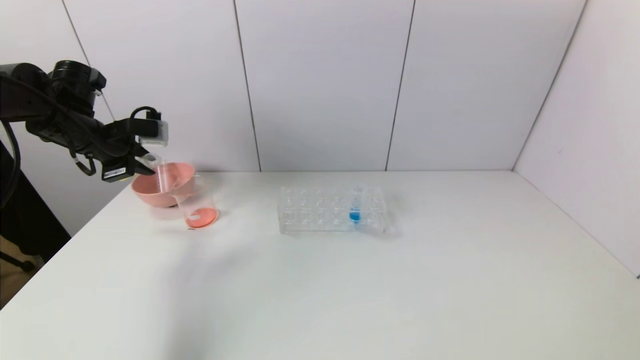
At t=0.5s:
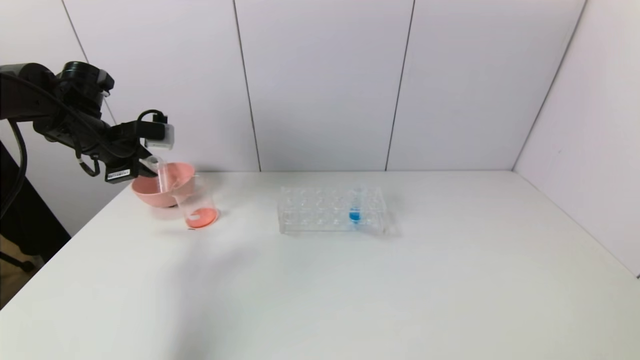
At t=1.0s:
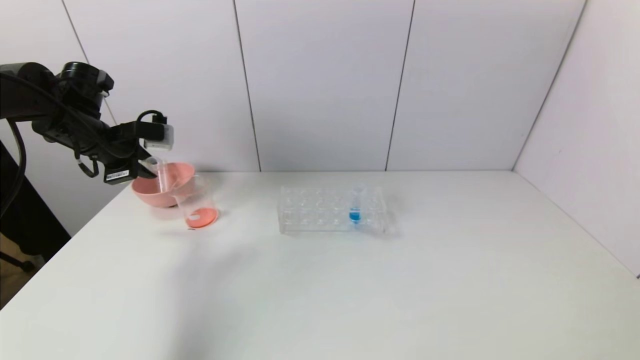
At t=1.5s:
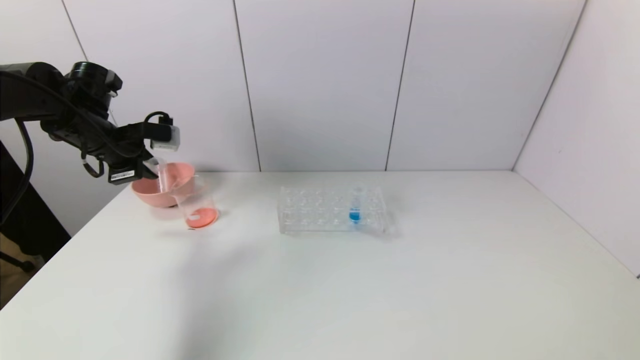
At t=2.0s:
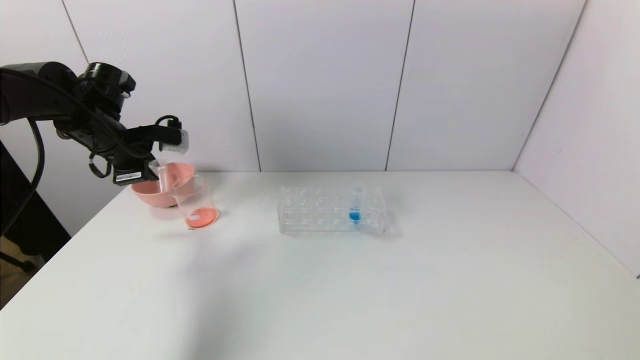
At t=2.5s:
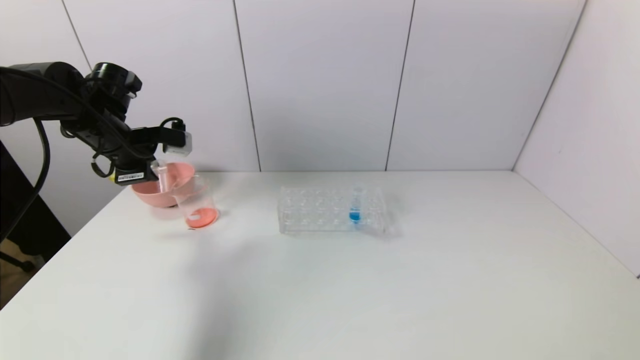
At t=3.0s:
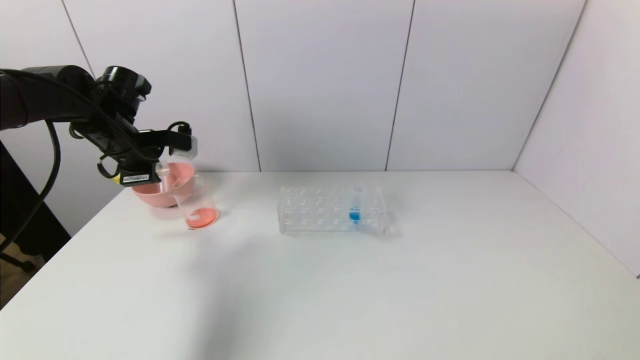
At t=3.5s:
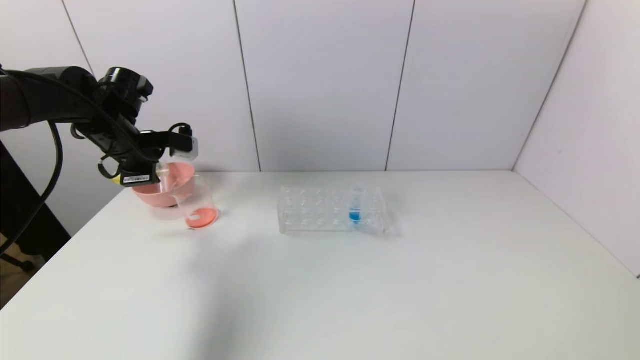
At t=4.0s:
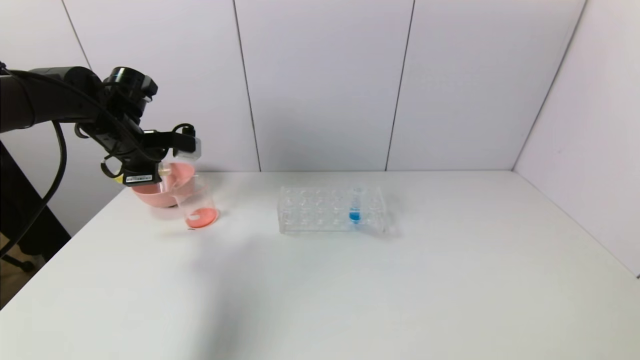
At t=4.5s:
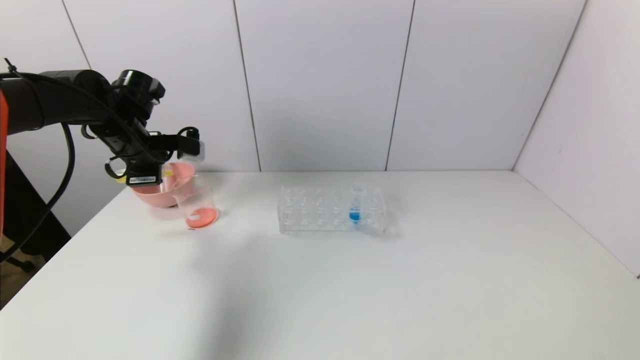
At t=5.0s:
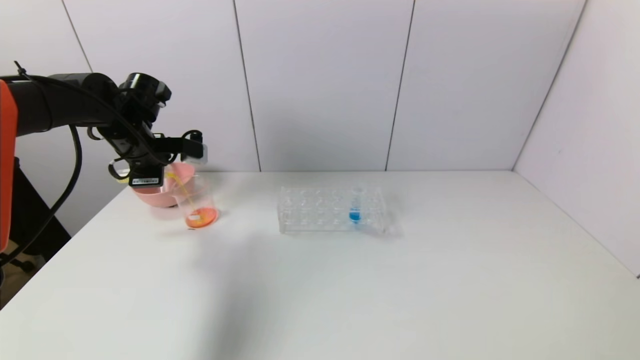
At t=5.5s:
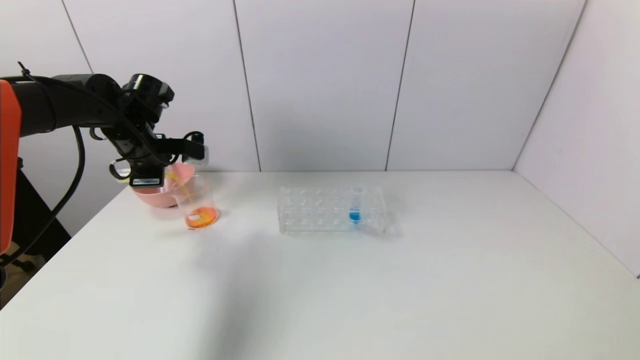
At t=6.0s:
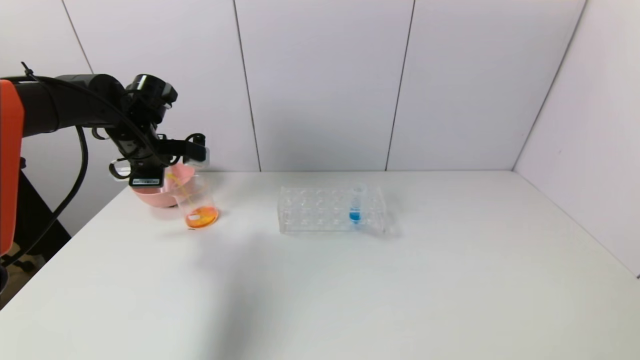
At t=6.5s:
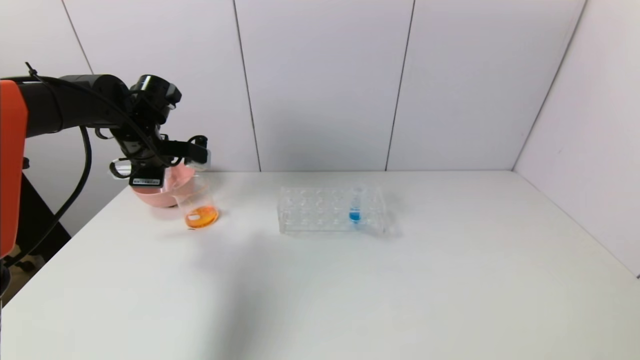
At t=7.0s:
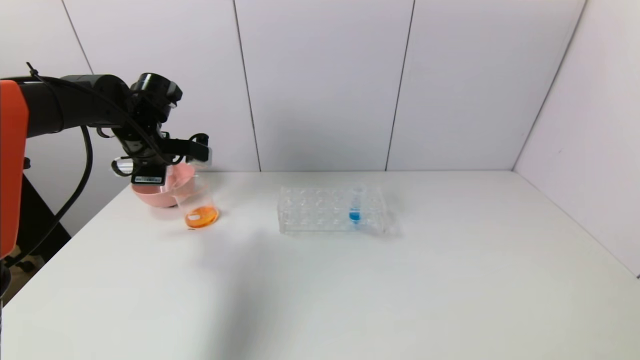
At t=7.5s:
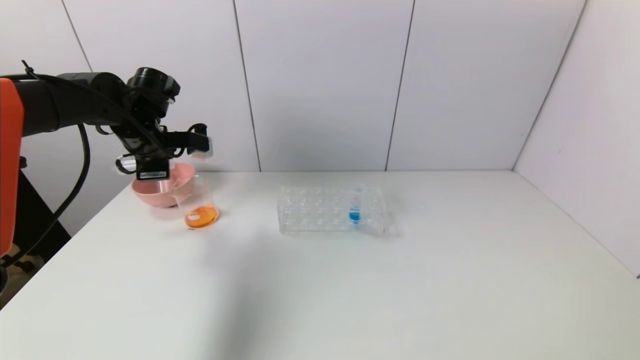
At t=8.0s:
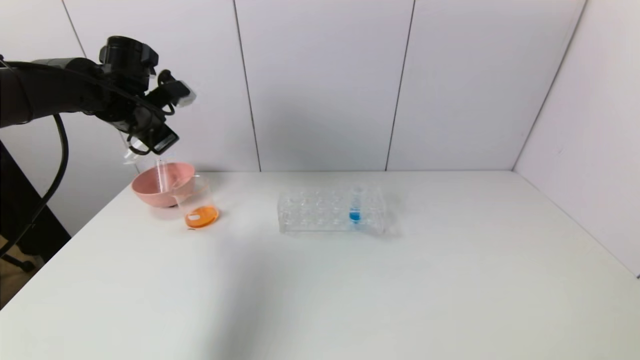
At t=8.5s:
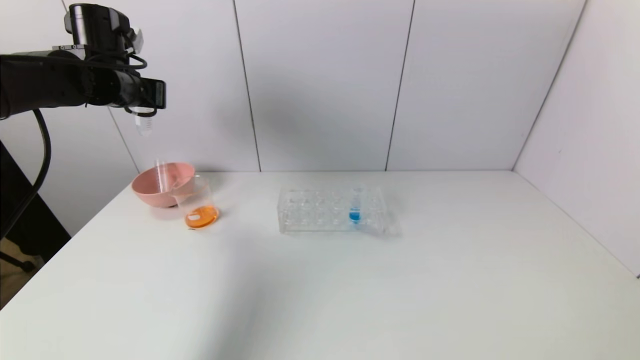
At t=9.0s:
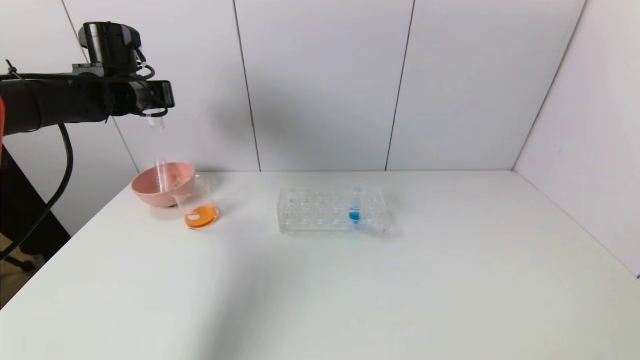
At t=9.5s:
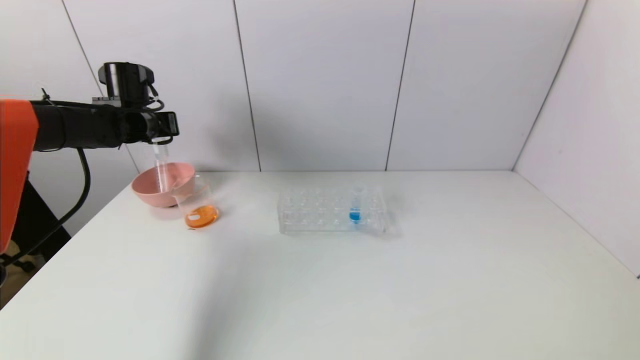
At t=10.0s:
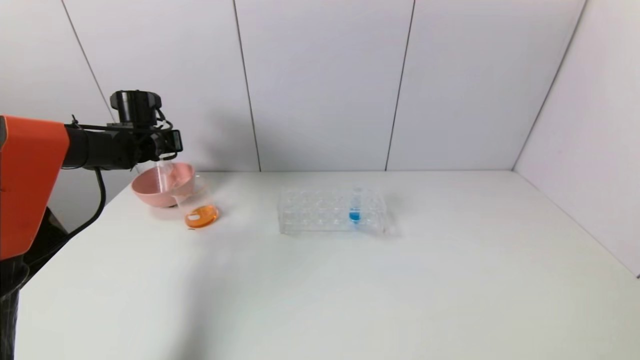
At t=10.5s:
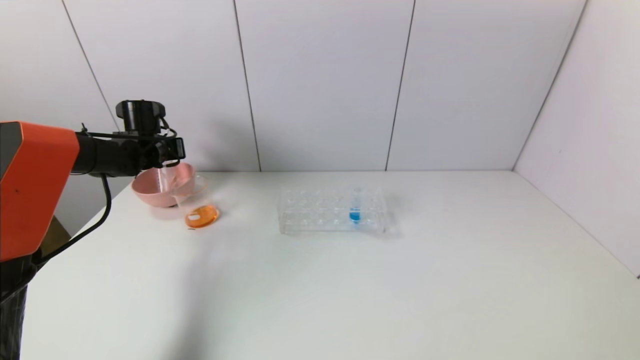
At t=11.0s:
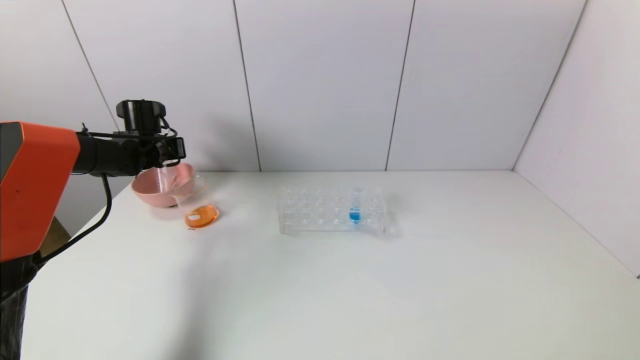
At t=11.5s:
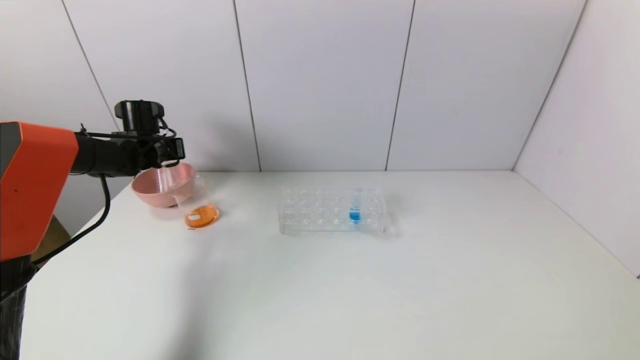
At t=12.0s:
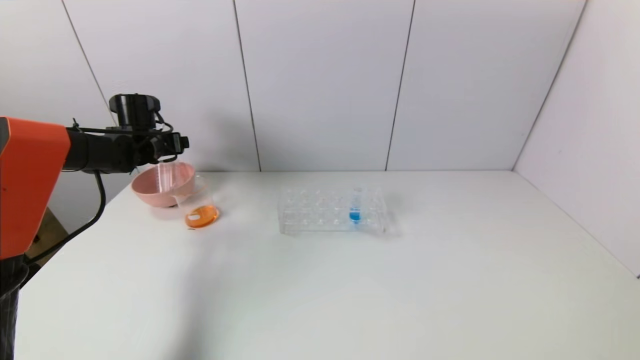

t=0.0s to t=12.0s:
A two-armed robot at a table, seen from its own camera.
Task of the whole recording: pick up the test tube with yellow pigment and the test tube with red pigment by grippers and pour them into the beaker.
Step, t=0.0s to t=6.5s: Pour the yellow reagent into the graduated cylinder with the left gripper.
Step, t=7.0s to t=11.5s: Place the test tube into the pink bowl with the left gripper.
t=0.0s to t=4.0s: The grippers stay close to where they were, moving slightly.
t=4.0s to t=6.0s: The grippers move only a little.
t=8.0s to t=10.0s: The left gripper travels downward and forward by some 10 cm.
t=10.0s to t=12.0s: The left gripper opens up.

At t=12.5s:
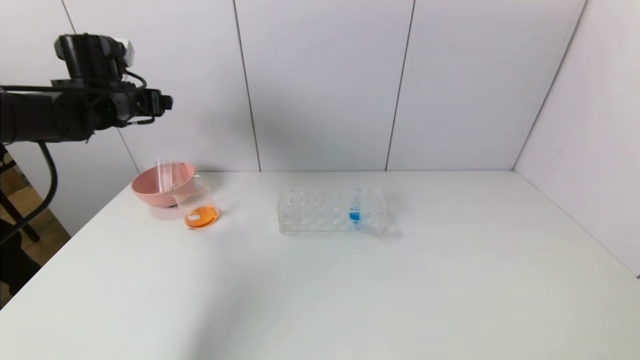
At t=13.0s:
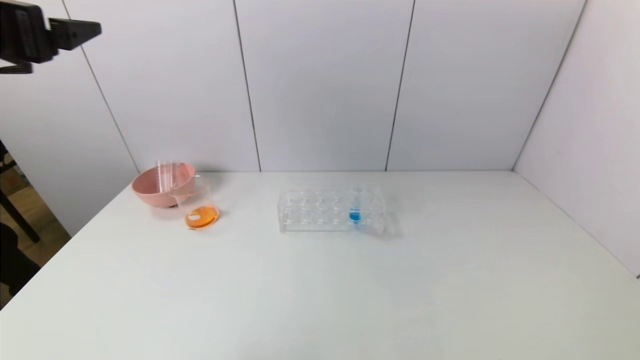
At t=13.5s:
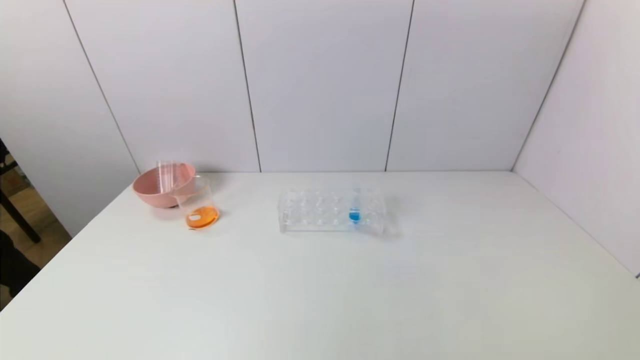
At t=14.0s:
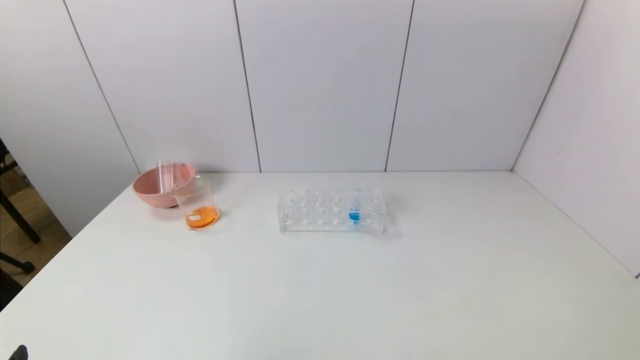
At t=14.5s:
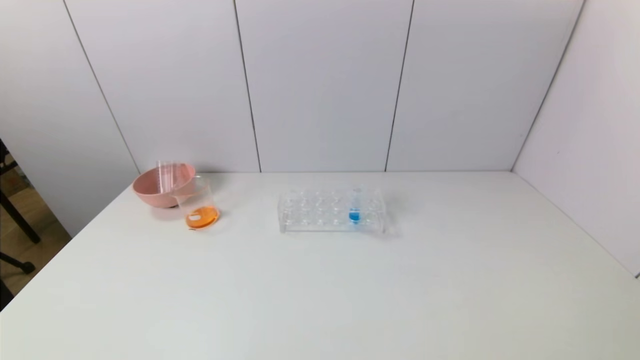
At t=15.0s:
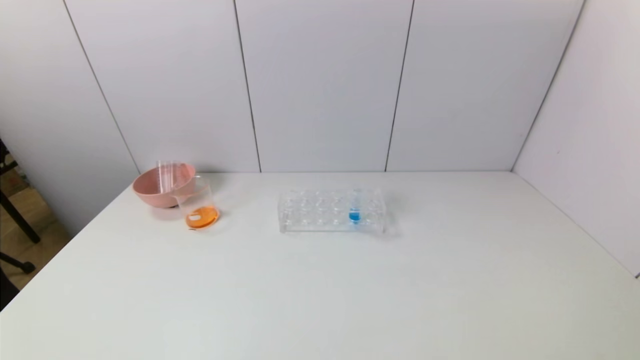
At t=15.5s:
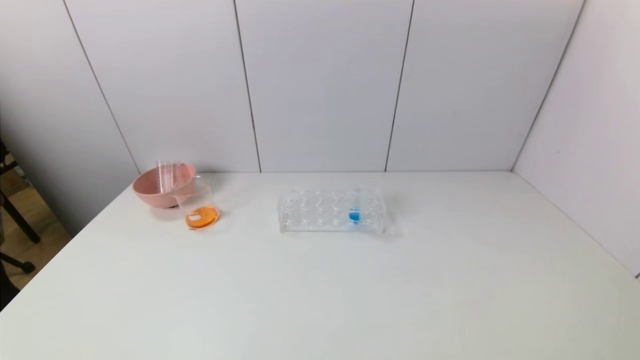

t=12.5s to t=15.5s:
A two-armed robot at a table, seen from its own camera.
Task of the whole recording: pick up the test tube with yellow pigment and the test tube with red pigment by grippers and pour them into the beaker.
t=12.5s to t=14.0s: The left gripper is displaced backward by approximately 40 cm.
t=14.0s to t=15.5s: The left gripper shifts some 5 cm downward.
